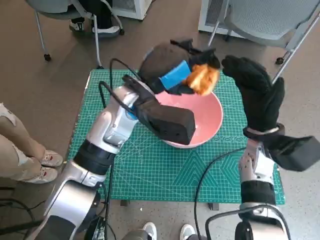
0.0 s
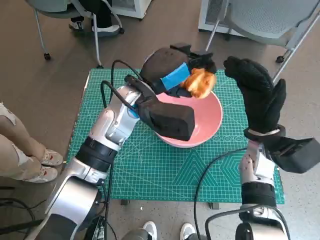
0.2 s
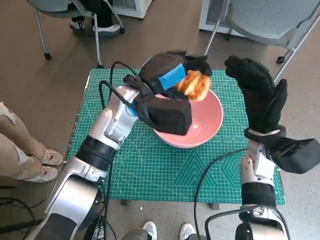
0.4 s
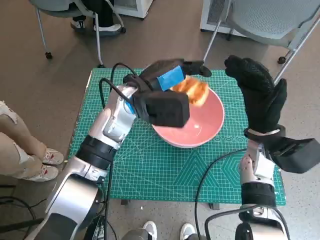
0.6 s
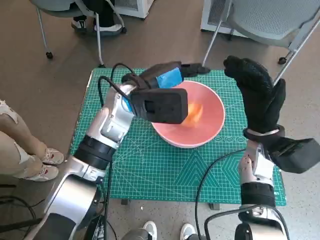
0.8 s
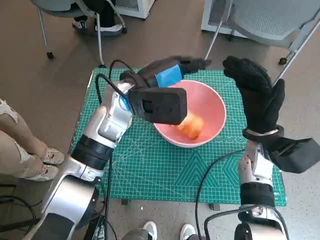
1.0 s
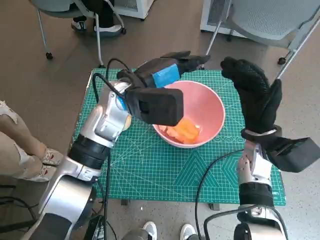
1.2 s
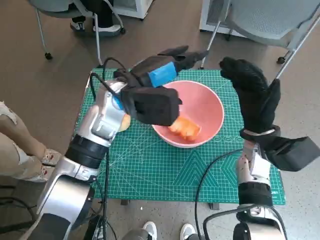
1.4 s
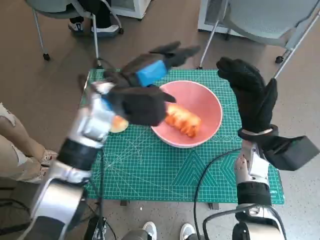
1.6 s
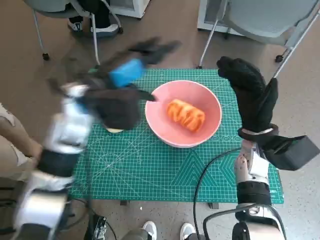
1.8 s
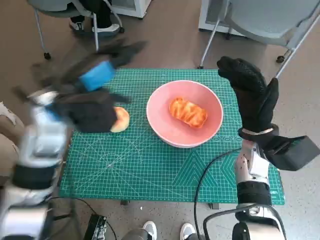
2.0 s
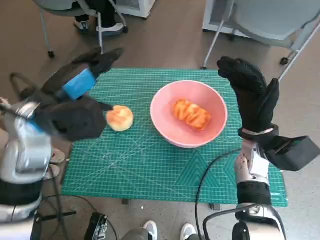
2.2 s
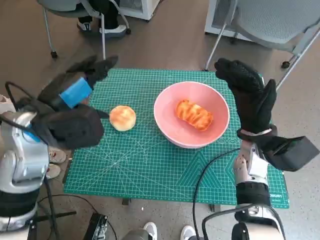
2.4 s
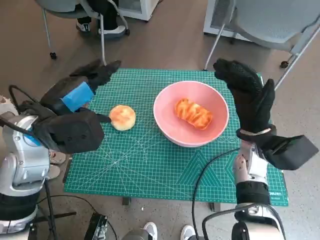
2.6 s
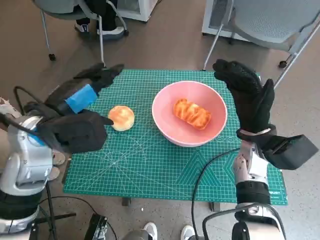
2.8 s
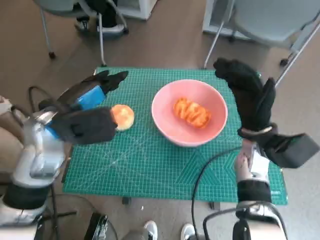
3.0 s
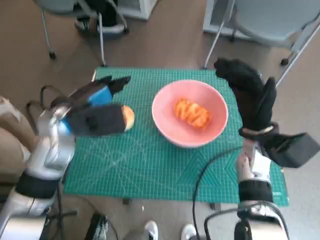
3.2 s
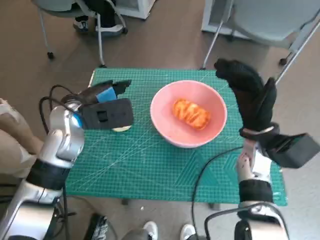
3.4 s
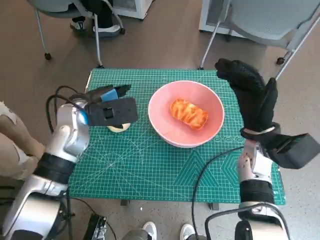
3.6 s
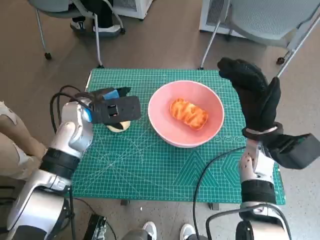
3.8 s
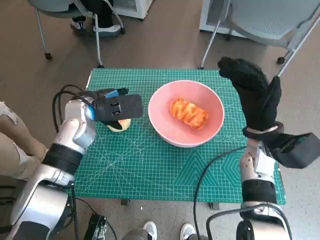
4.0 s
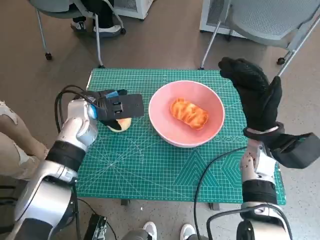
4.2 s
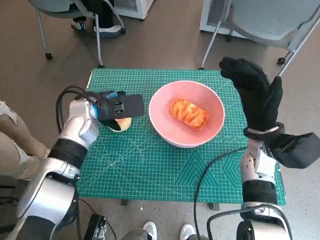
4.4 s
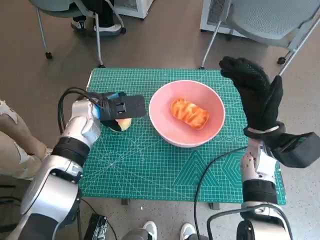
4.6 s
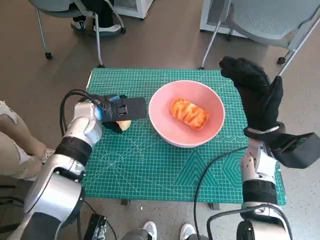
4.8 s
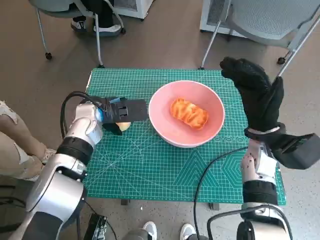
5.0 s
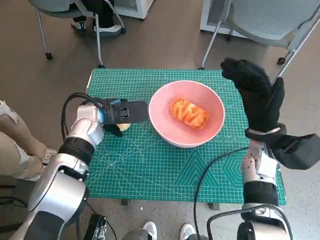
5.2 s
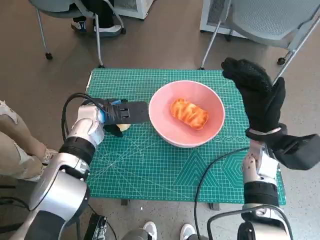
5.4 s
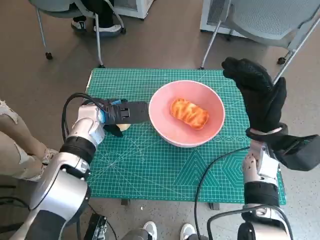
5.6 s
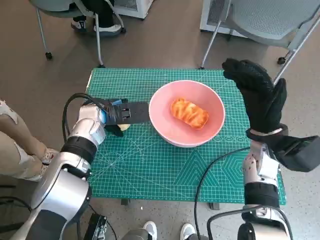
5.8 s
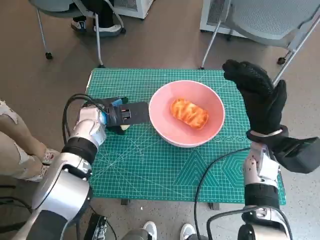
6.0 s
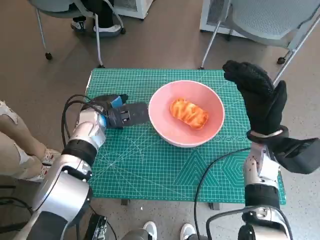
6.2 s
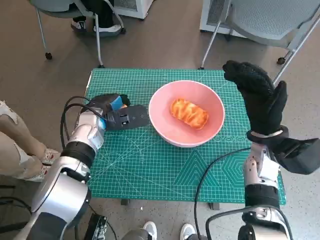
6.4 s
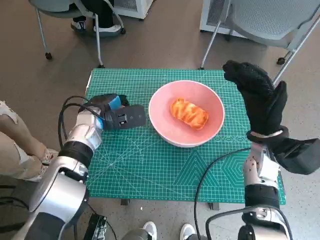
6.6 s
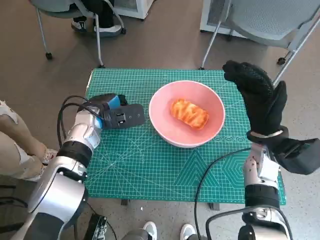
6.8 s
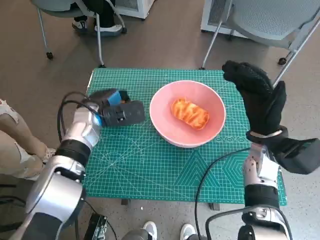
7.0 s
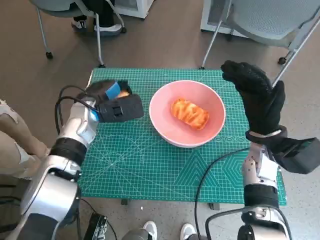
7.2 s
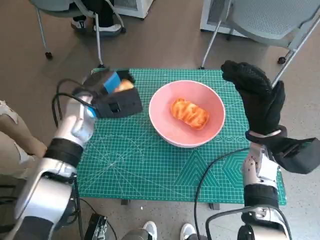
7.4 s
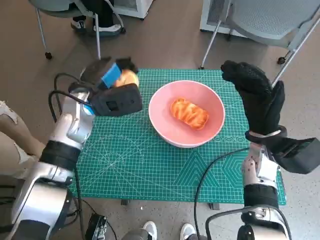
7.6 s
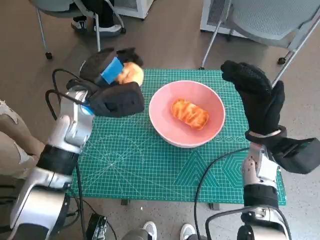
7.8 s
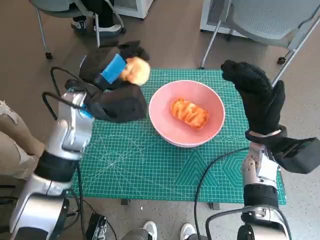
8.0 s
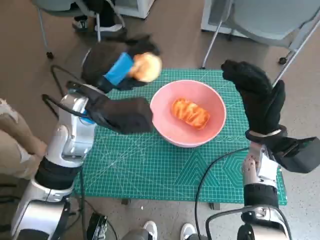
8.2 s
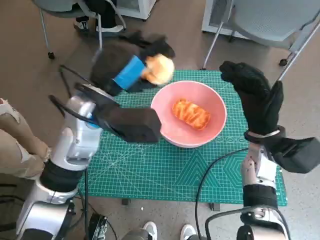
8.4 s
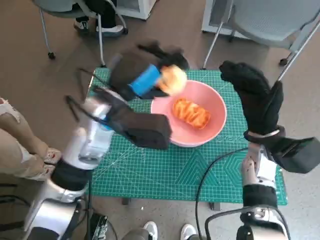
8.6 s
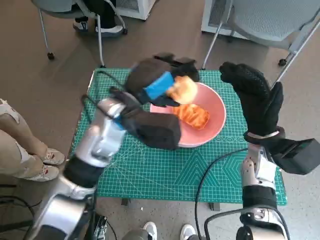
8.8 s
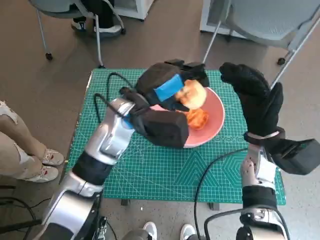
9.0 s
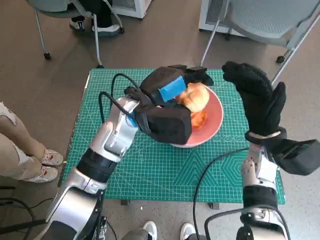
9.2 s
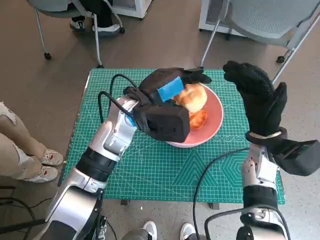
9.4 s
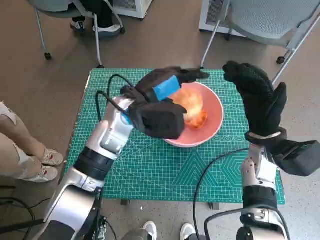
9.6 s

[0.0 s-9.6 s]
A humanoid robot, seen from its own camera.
Step, 1.4 to 6.2 s: Grasp the round bread with left hand.
1.6 to 3.2 s: The left hand goes some 10 cm to the left.
3.2 to 4.8 s: The left hand moves forward and downward, roughly 10 cm.
4.8 to 6.4 s: The hands make only small movements.
6.4 to 8.0 s: The left hand travels upward by some 10 cm.
8.0 to 9.6 s: The left hand goes approximately 5 cm to the right.

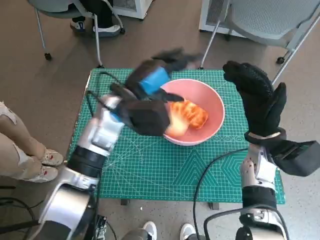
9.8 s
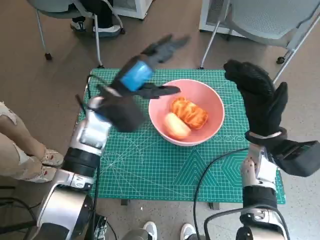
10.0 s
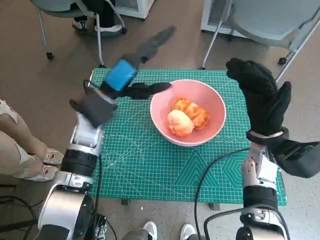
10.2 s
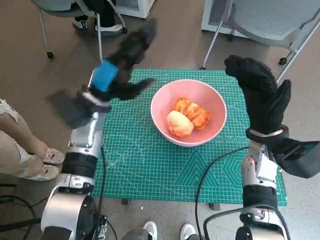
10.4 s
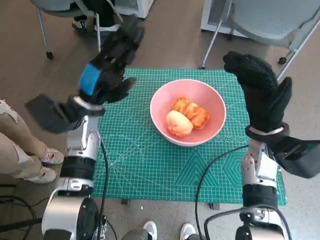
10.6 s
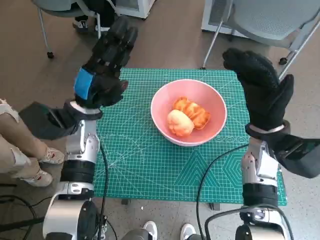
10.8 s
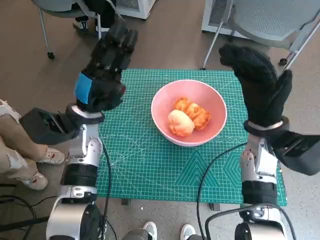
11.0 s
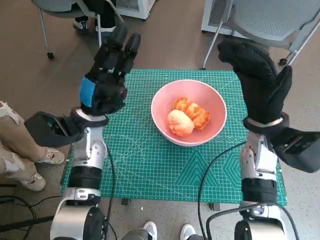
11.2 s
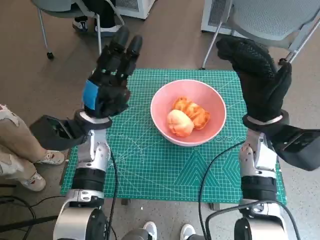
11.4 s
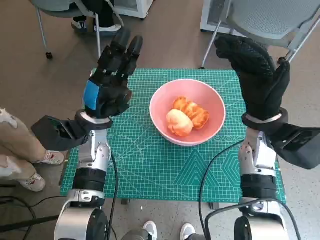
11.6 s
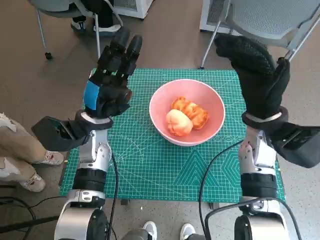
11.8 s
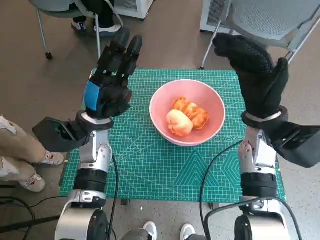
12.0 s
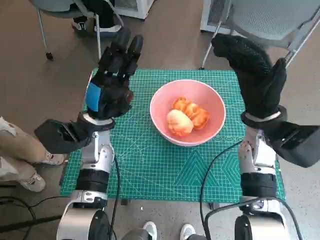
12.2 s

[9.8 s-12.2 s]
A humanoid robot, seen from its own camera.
9.8 to 11.0 s: The left hand is displaced to the left by some 10 cm.

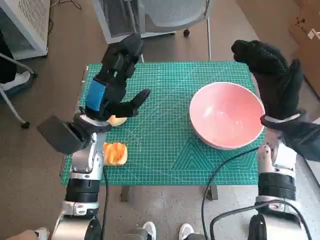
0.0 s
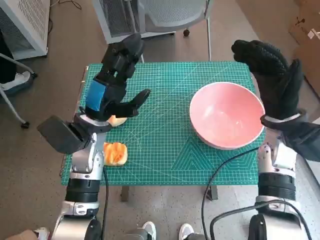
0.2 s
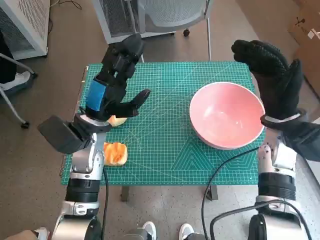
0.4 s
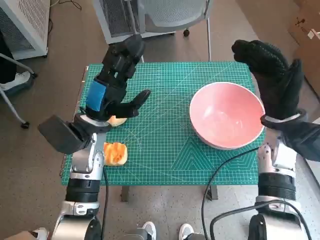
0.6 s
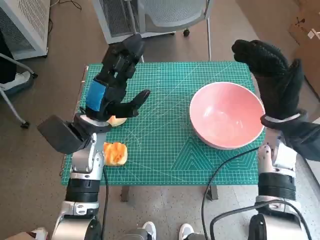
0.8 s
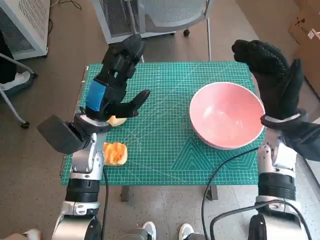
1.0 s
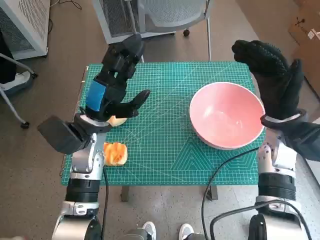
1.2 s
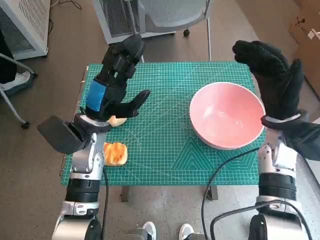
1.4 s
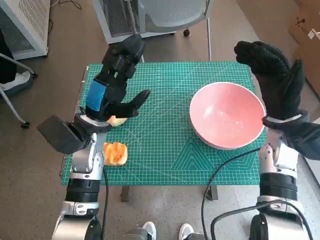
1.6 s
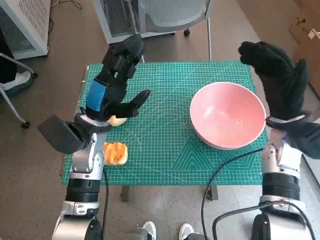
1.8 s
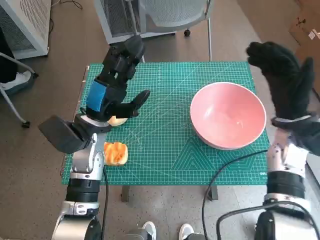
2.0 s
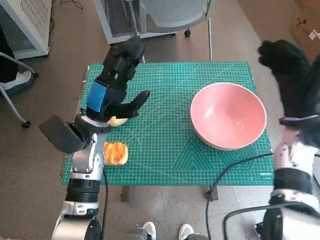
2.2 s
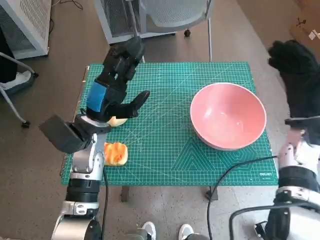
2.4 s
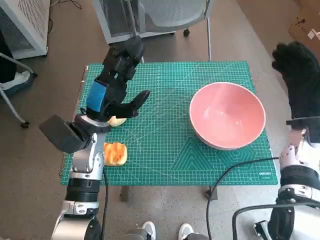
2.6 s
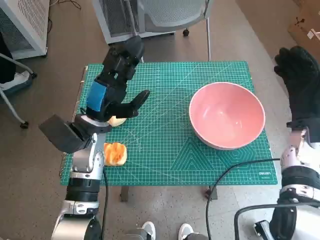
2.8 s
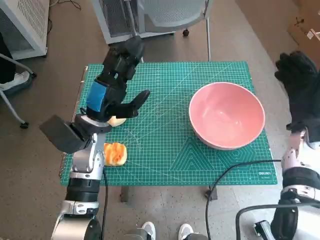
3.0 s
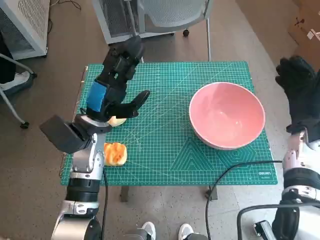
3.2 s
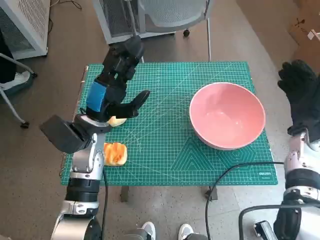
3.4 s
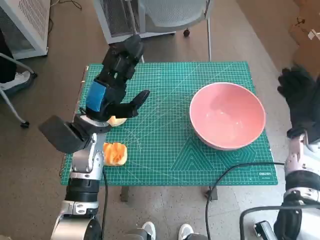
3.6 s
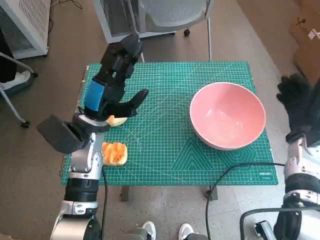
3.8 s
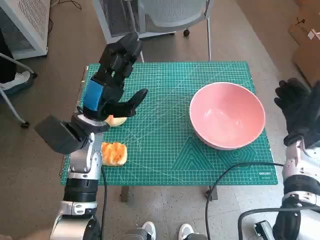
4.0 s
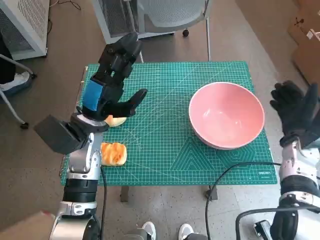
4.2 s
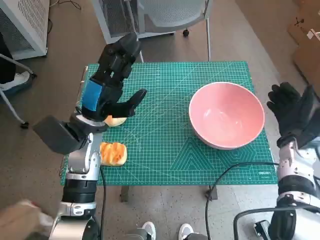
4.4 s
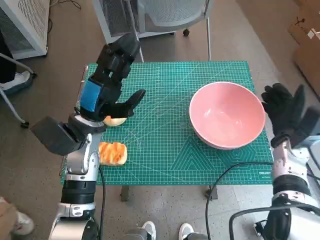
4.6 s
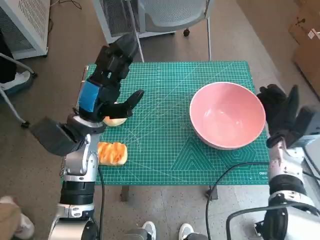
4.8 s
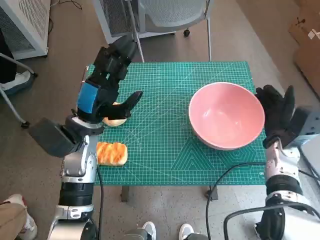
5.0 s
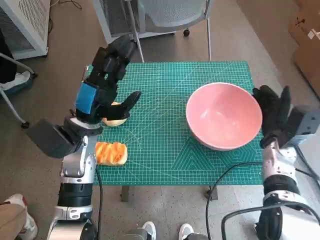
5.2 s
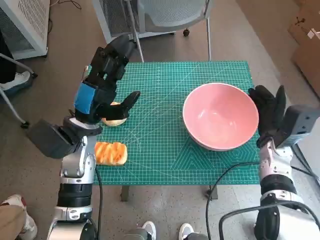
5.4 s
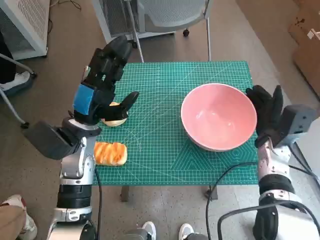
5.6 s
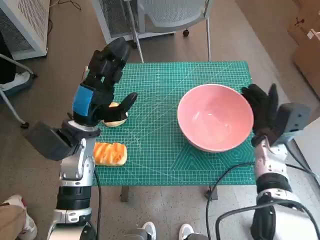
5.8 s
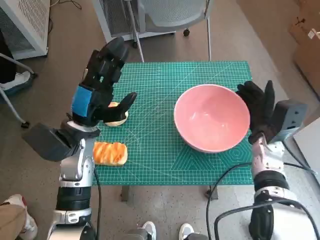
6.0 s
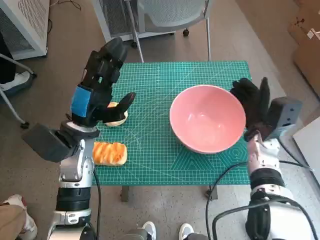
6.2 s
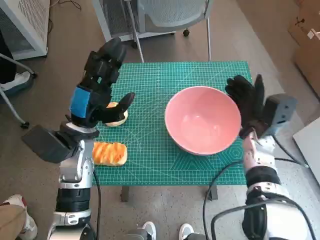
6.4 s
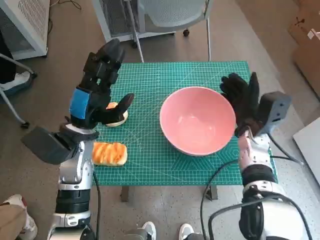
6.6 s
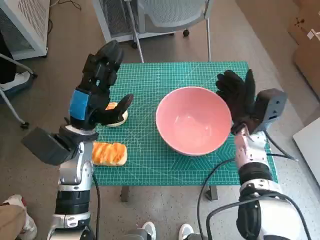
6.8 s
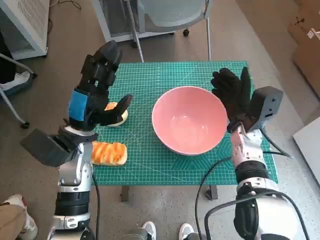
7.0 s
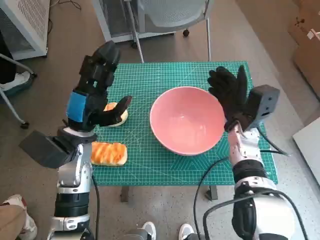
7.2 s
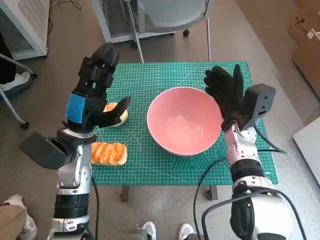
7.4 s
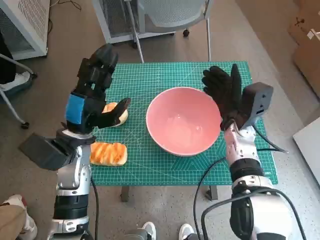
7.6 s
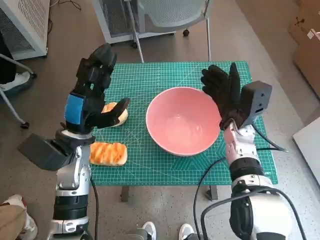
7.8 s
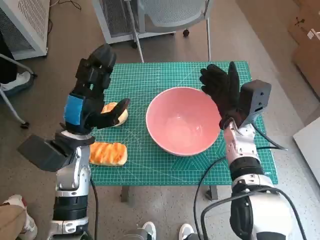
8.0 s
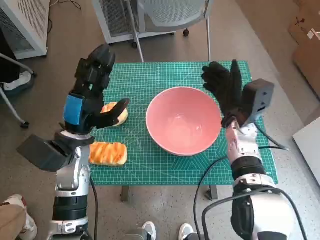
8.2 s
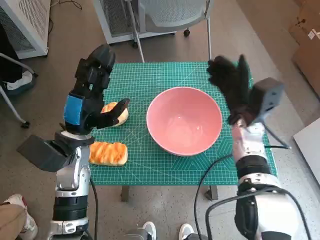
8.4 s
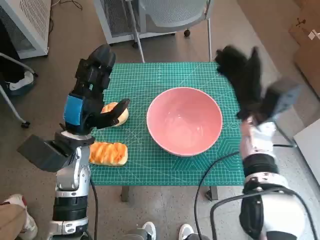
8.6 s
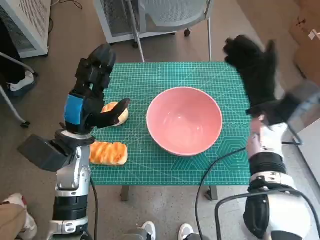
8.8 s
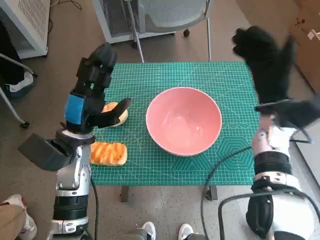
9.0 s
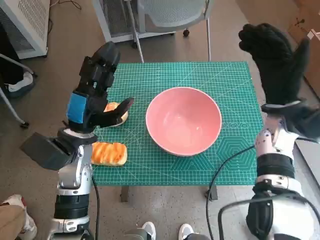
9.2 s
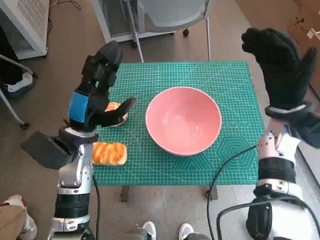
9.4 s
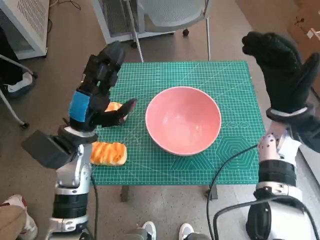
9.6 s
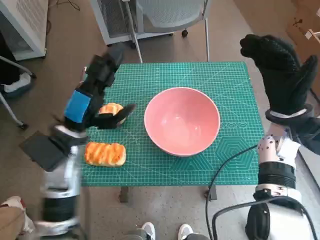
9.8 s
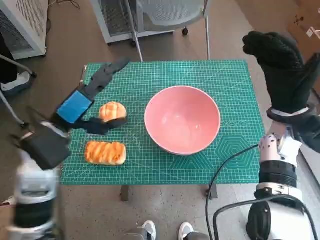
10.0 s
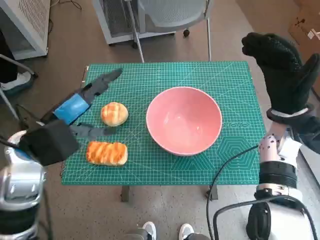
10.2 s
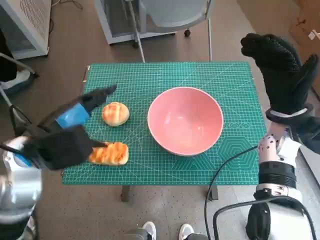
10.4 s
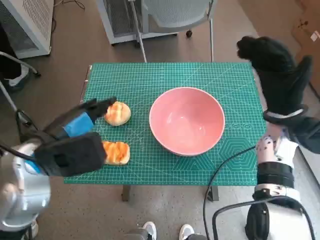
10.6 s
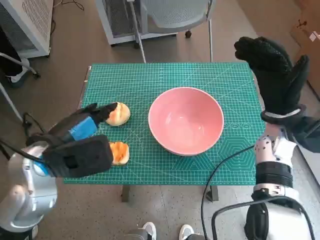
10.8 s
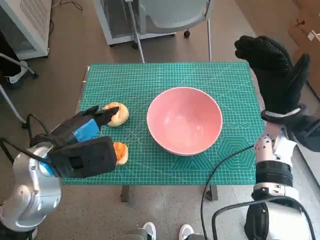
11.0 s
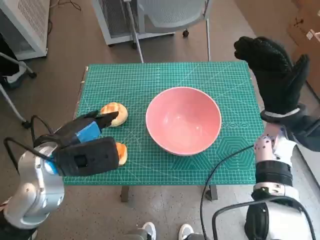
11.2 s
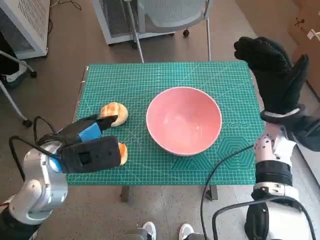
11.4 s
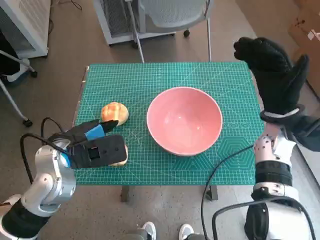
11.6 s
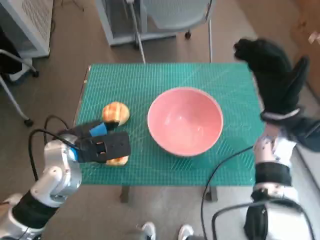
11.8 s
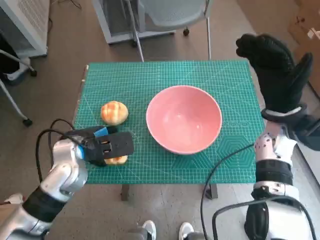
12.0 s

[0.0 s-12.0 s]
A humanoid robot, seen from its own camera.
Step, 0.0 to 8.2 s: Move the pink bowl to the center of table with right hand.
1.6 to 3.0 s: The right hand is displaced to the right by roughly 5 cm.
4.4 to 6.0 s: The right hand is displaced to the left by about 5 cm.
6.0 to 7.6 s: The right hand moves to the left, about 5 cm.
7.6 to 9.0 s: The right hand is displaced to the right and upward by about 10 cm.
9.0 to 10.4 s: The left hand shifts some 10 cm upward.
10.4 to 12.0 s: The left hand is displaced downward by approximately 10 cm.
